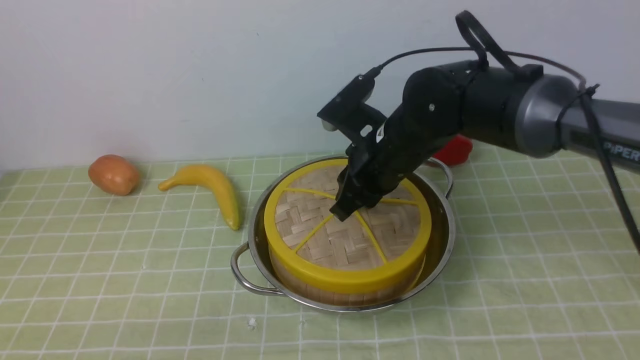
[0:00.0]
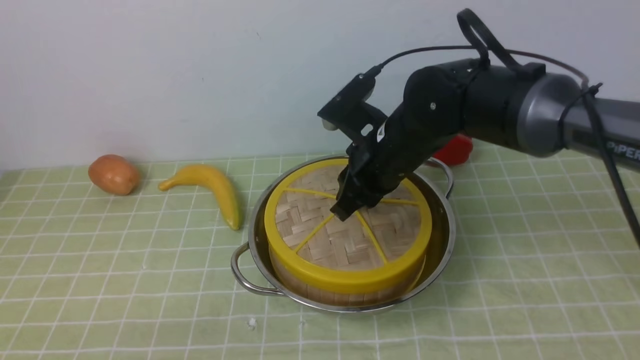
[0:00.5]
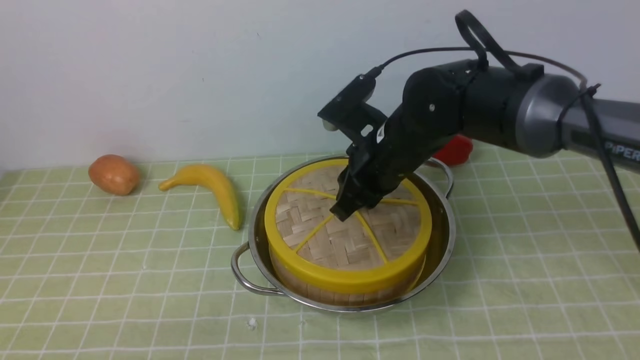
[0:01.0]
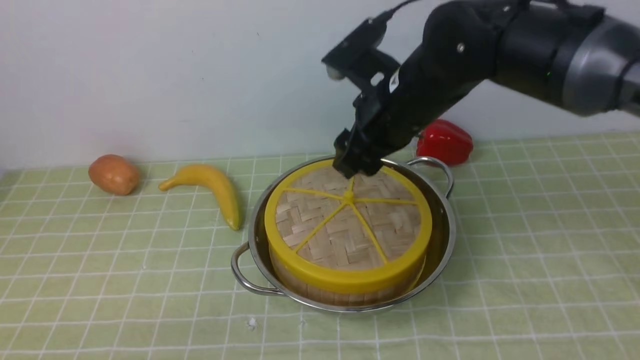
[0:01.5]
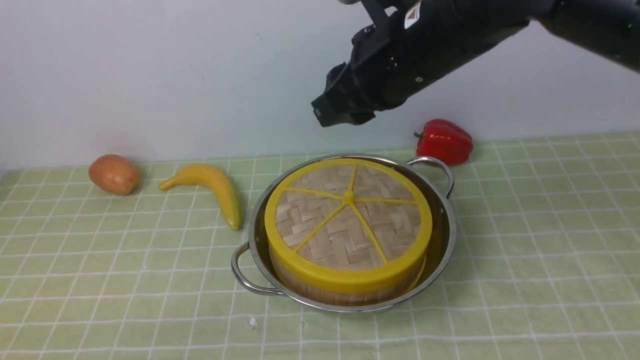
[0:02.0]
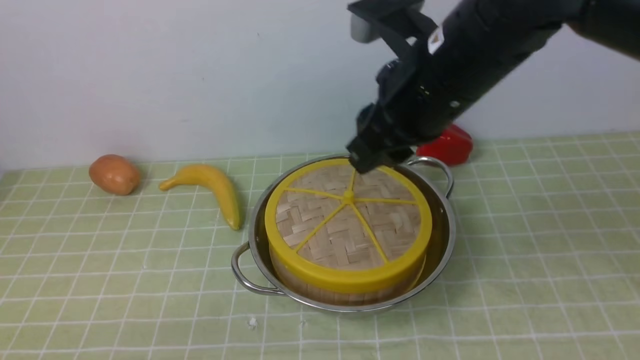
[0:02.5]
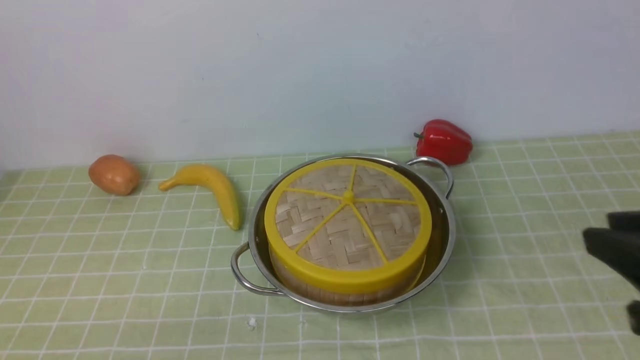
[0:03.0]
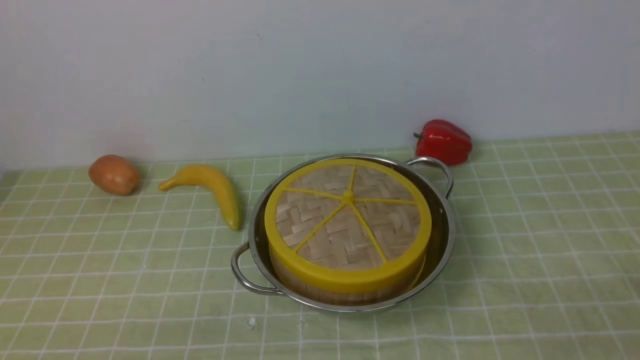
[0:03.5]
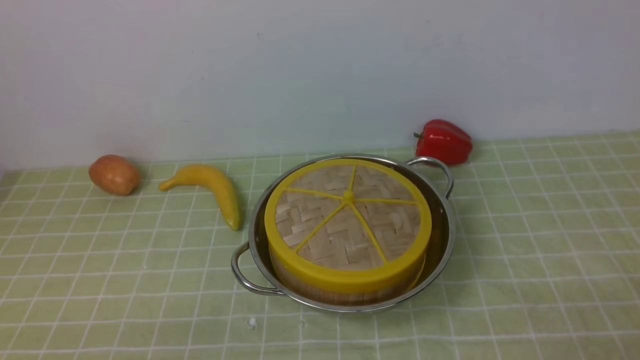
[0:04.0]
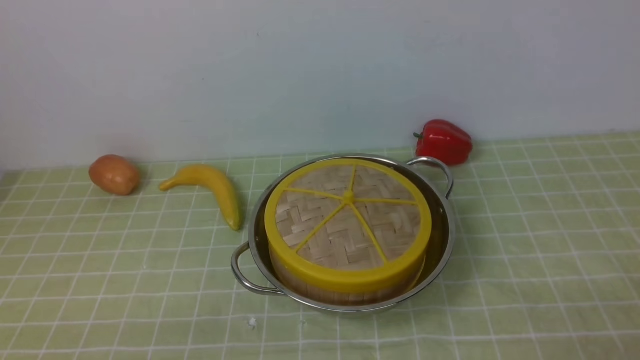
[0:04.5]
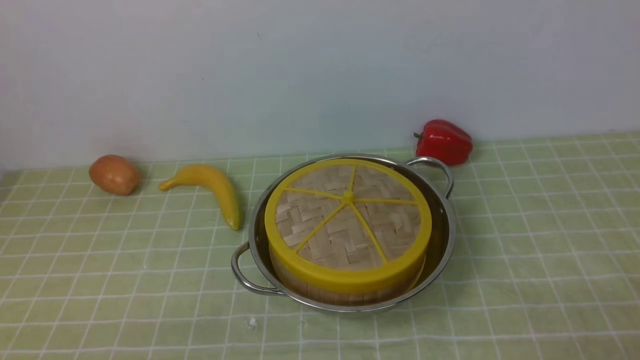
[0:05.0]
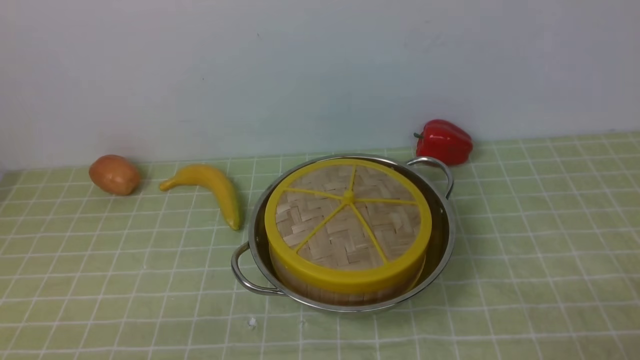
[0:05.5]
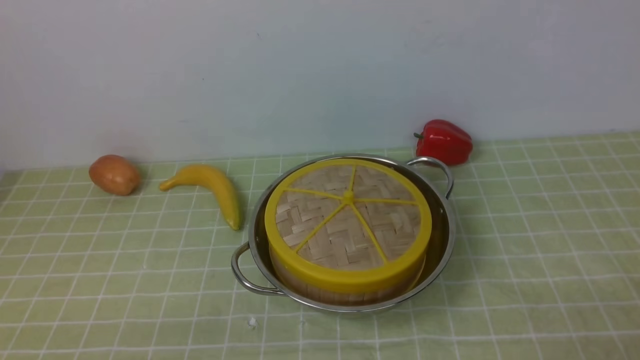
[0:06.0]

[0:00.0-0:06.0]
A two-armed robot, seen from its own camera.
Task of the whole recording: place the steamer in the pot on the green tablecloth, and put the lid on the steamer.
0.0 to 2.0 s: The right gripper shifts some 15 cm upward, and opens.
2.0 to 4.0 s: The right gripper shifts some 40 cm backward, to the right and downward.
4.0 to 6.0 s: Neither gripper changes place.

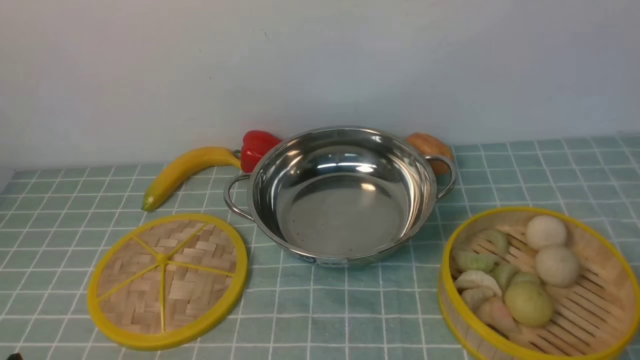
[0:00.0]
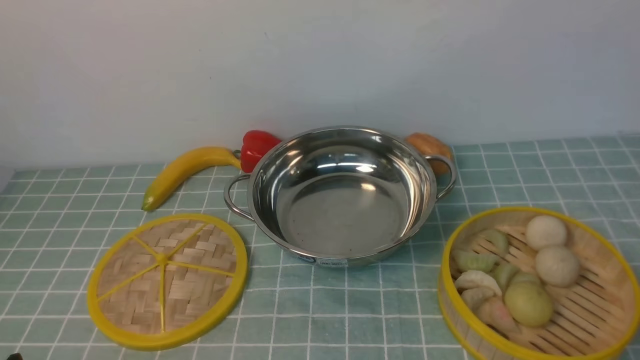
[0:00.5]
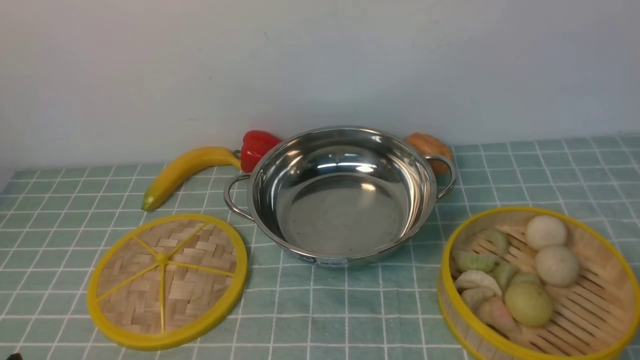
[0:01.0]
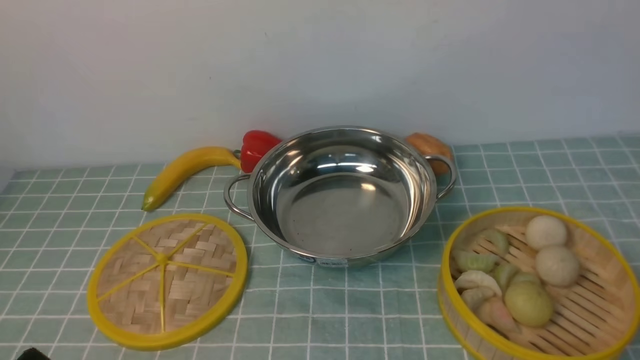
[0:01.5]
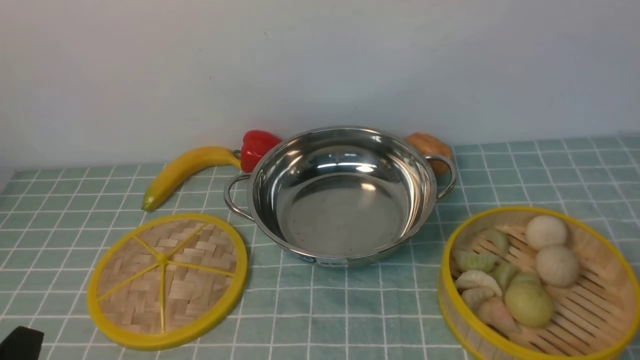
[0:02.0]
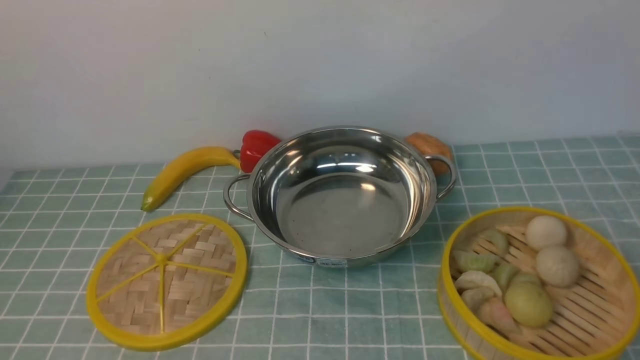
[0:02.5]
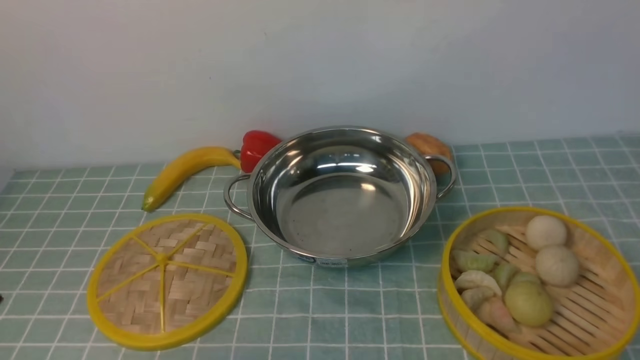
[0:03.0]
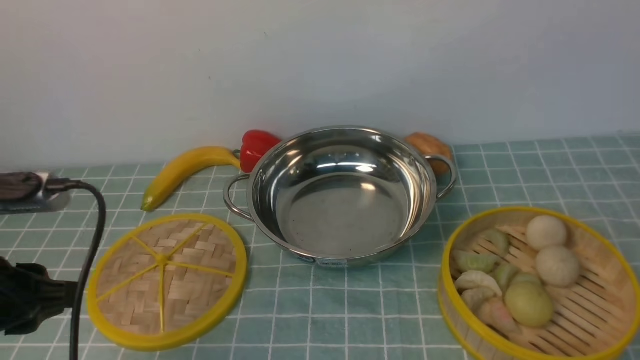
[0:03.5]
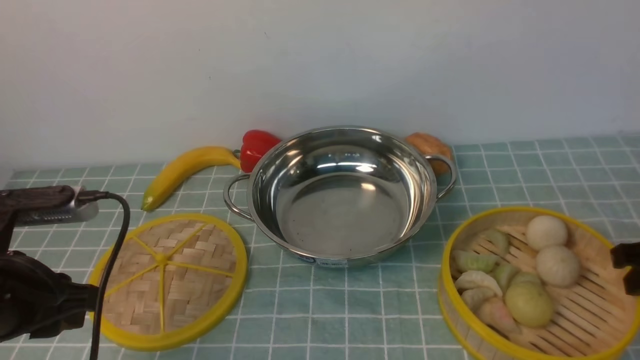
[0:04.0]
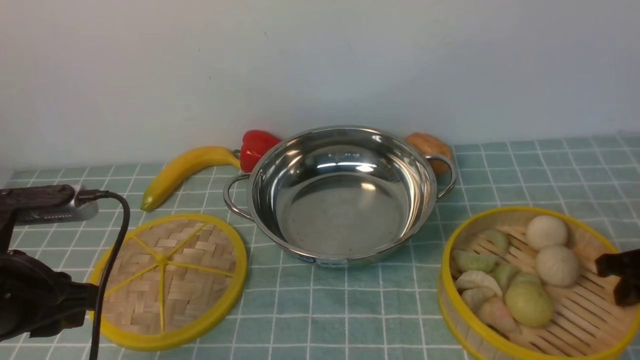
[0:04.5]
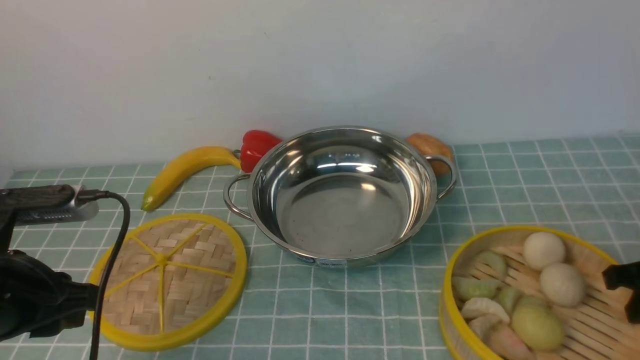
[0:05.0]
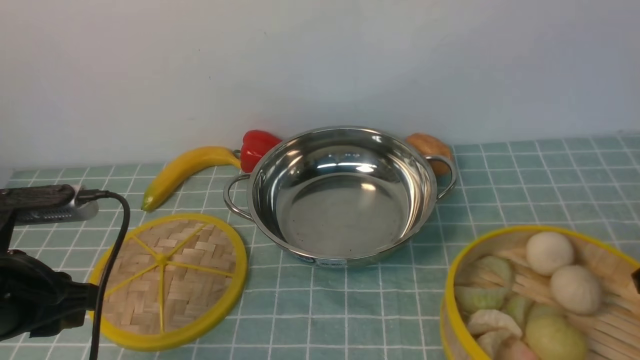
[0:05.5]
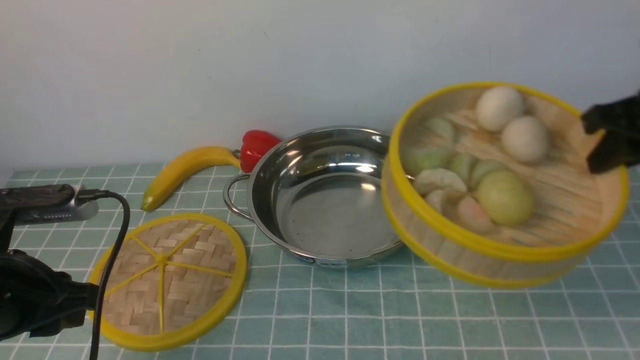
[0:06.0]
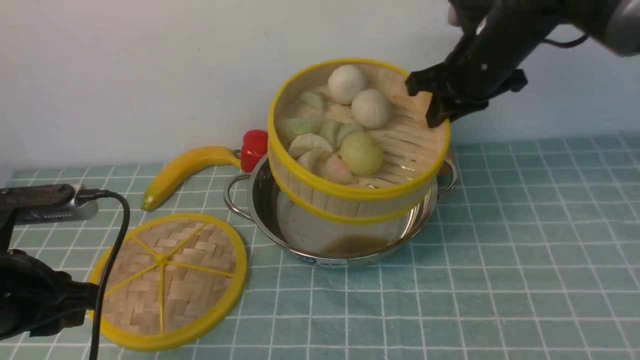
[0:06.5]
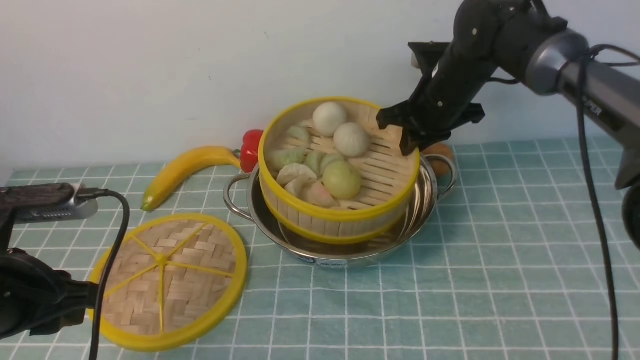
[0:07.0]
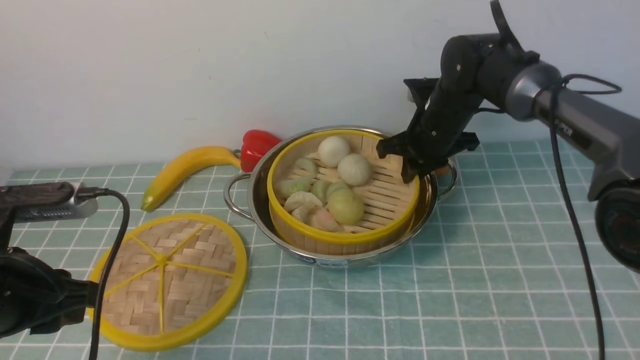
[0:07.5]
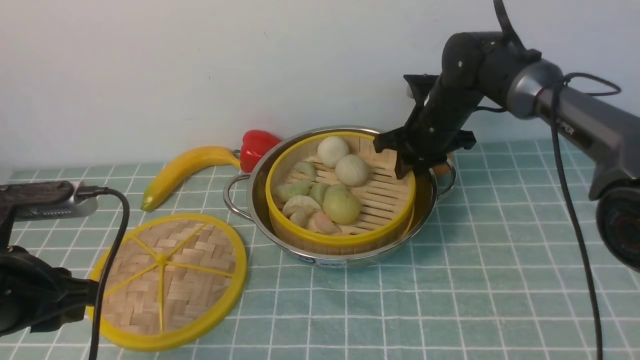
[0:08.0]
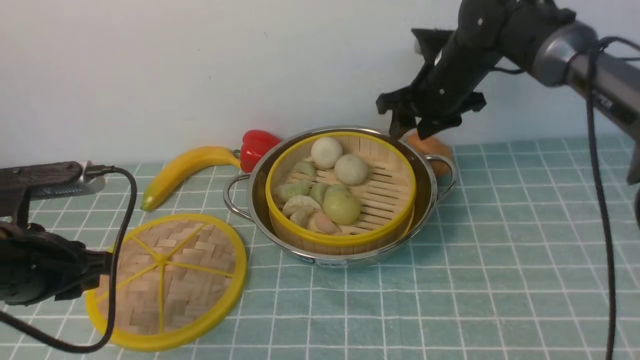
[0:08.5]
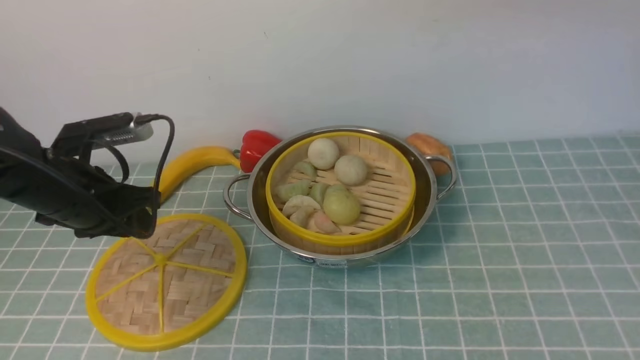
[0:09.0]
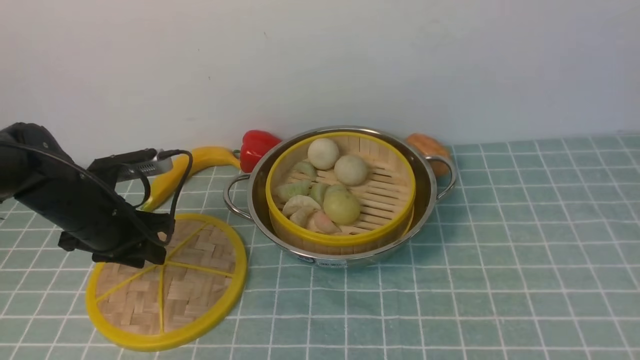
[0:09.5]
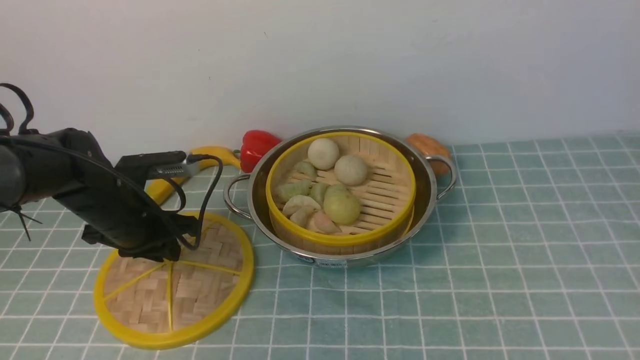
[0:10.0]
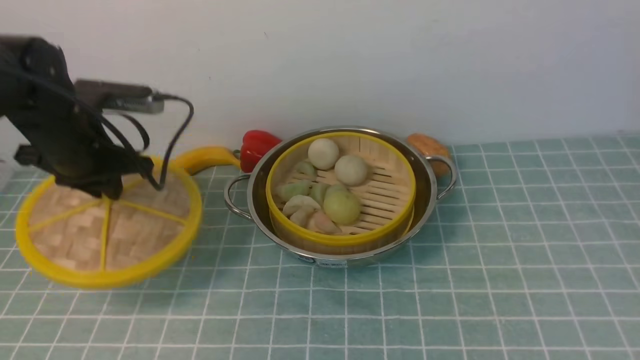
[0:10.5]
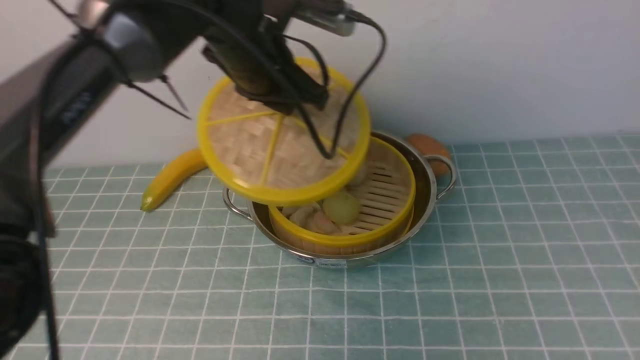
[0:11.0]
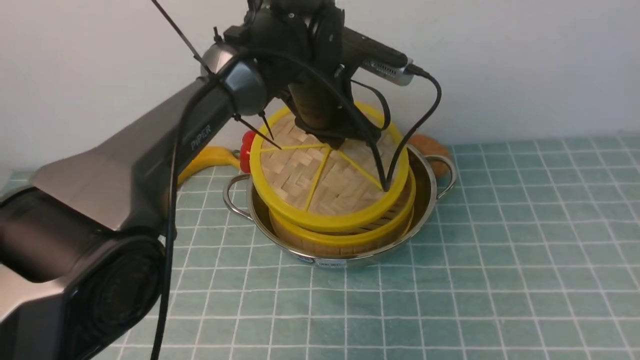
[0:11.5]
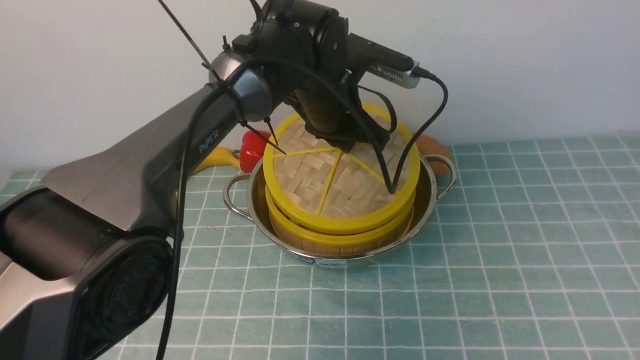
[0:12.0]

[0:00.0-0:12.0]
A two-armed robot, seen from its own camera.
Task of the whole recording: place the steamer in the pot on the blue tablecloth, and put the lid on the steamer.
Step, 0.0 to 5.5 s: use the right arm to lift the steamer closest to it.
Step, 6.0 to 8.5 s: use the right arm to put the steamer into the iron steamer pot in the middle.
Step, 9.0 to 10.5 s: use the left arm to lift the lid of the steamer.
2.0 to 4.0 s: The right gripper heads forward, covering approximately 20 cm. The left gripper is displaced forward and upward by approximately 15 cm.
4.0 to 6.0 s: The right gripper travels upward, forward and to the left by some 15 cm, and closes its fingers.
6.0 to 8.0 s: The right gripper shifts about 25 cm forward, to the left and downward.
8.0 to 10.0 s: The right gripper heads backward and upward, covering roughly 60 cm, and opens its fingers; the left gripper travels forward and downward by some 20 cm.
10.0 to 12.0 s: The left gripper heads to the right, covering approximately 25 cm.

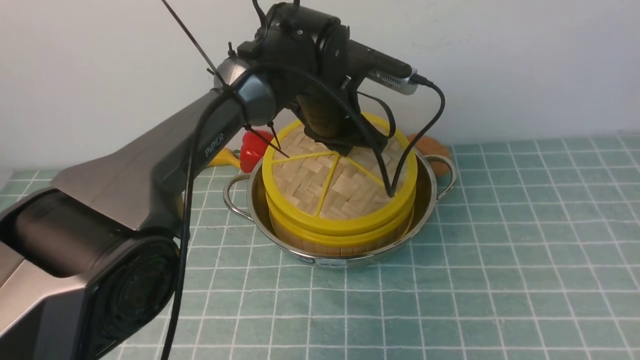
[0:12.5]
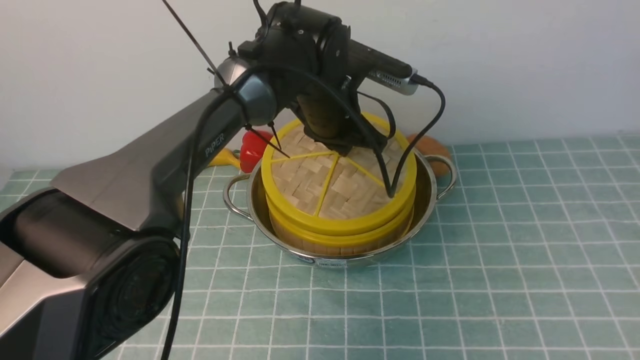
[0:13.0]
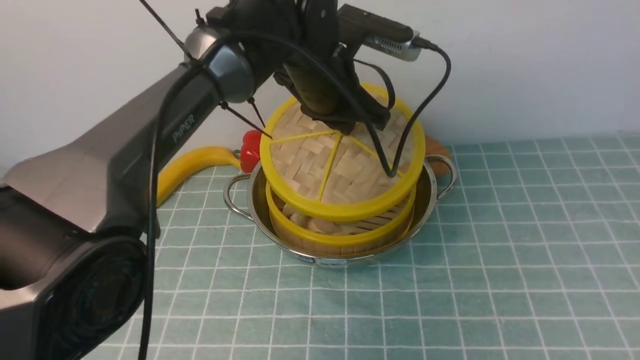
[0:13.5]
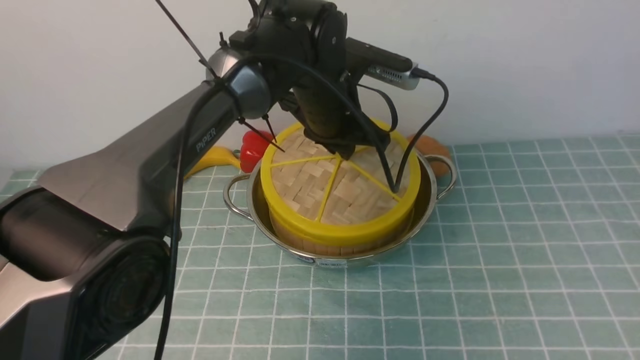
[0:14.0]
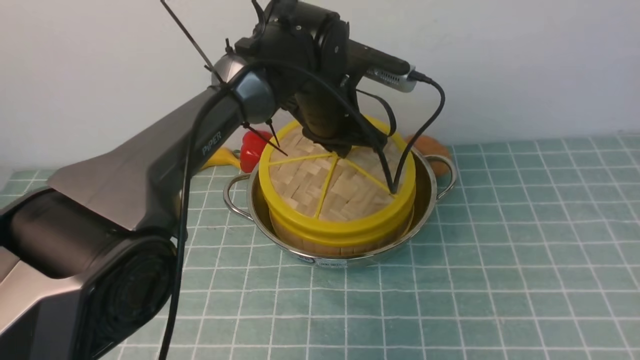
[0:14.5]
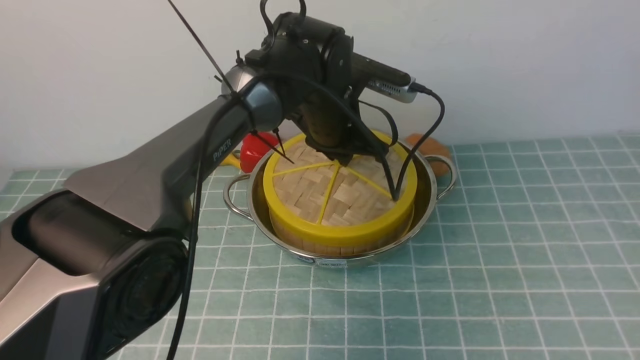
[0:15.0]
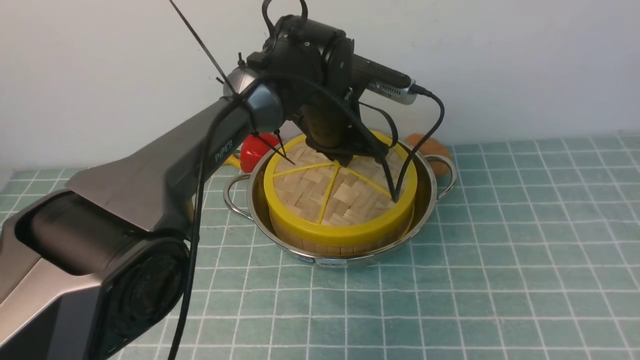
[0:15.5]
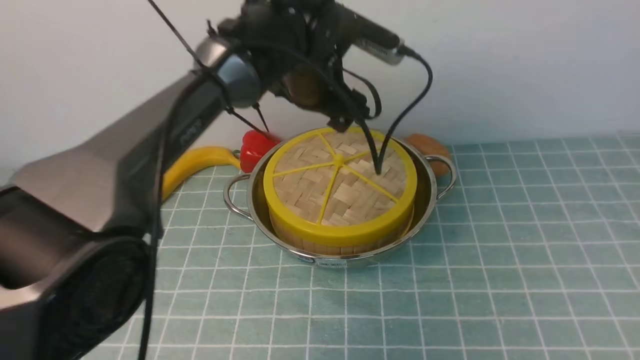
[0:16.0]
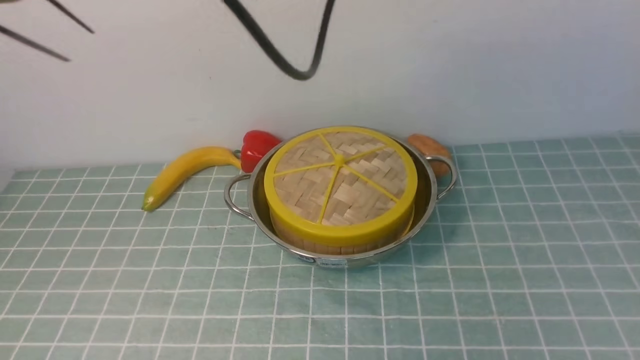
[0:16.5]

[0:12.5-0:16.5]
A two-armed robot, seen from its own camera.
Task of the whole recording: place the steamer in the pot on the blue tablecloth, and put the lid on the steamer.
Step, 12.5 to 16.0 s: use the left arm to place the steamer lid on the steamer.
12.5 to 14.5 s: The grippers make only small movements.
14.5 to 16.5 s: The left gripper travels upward, backward and to the left by about 25 cm, and opens, then closes once more.
